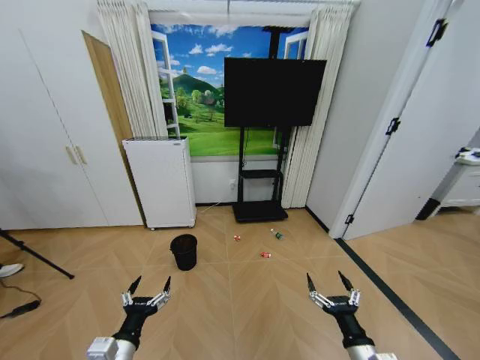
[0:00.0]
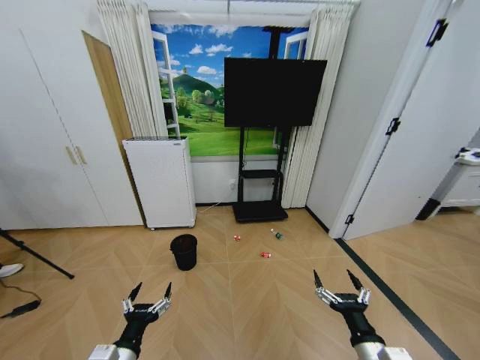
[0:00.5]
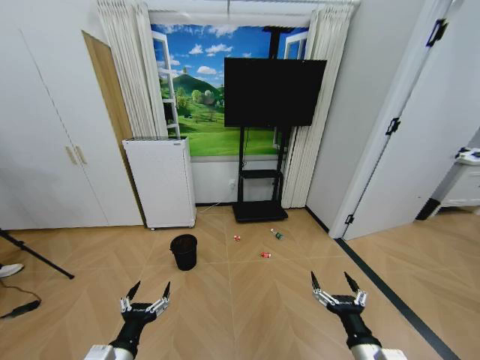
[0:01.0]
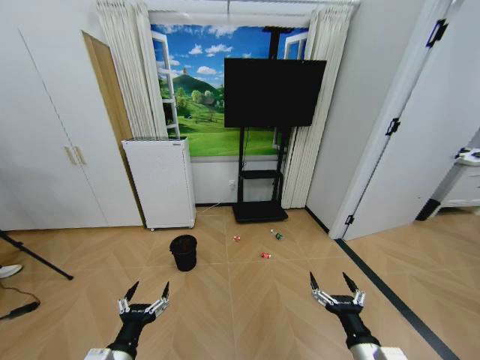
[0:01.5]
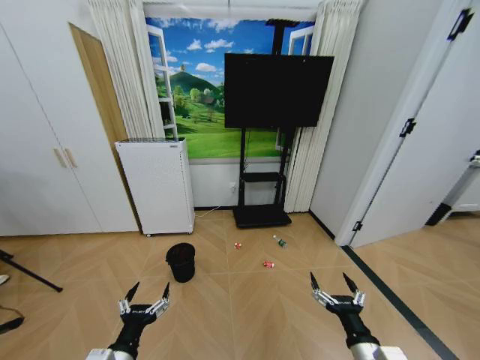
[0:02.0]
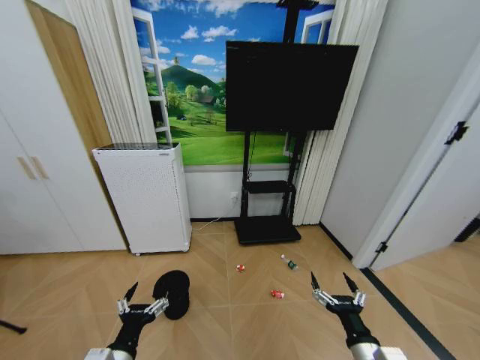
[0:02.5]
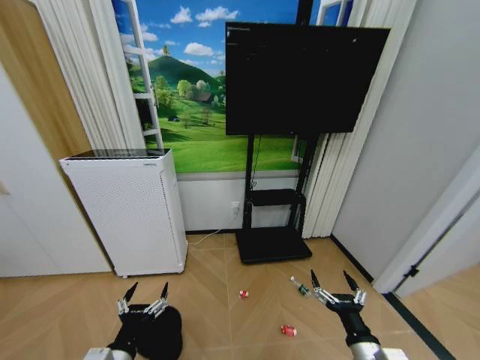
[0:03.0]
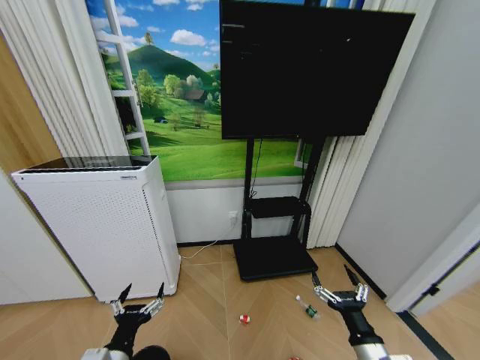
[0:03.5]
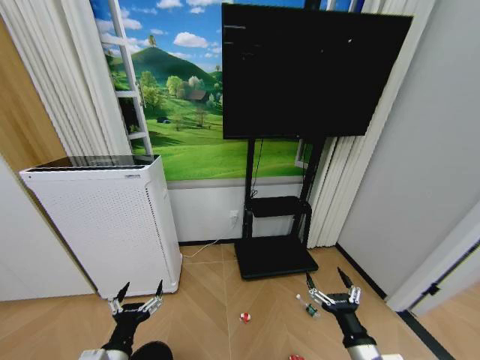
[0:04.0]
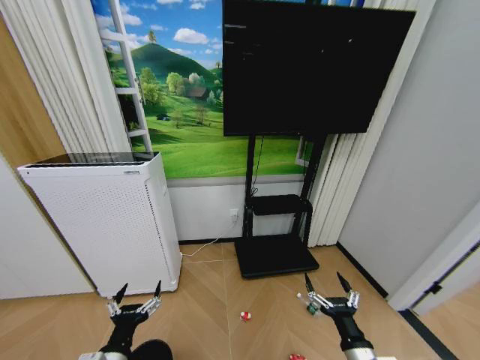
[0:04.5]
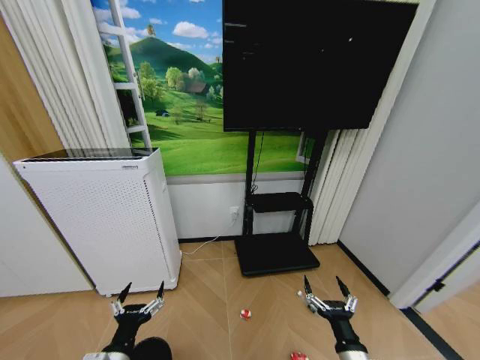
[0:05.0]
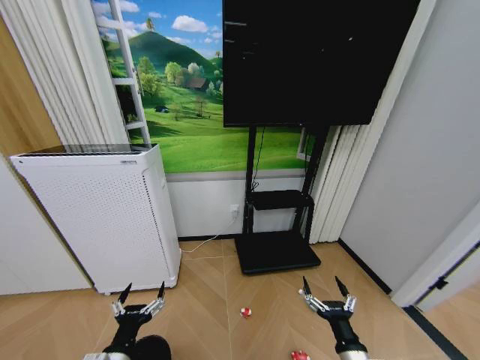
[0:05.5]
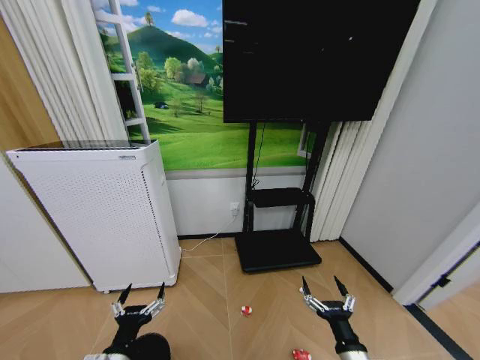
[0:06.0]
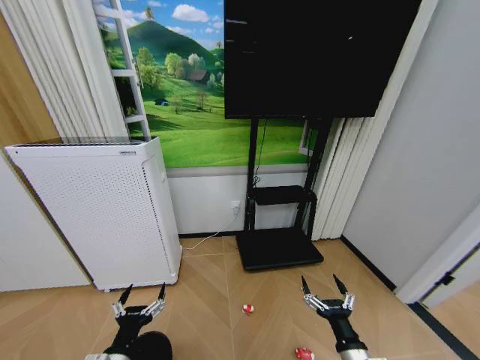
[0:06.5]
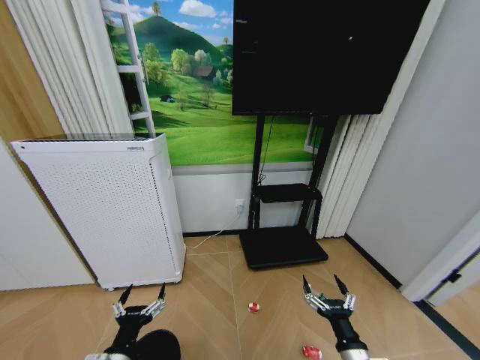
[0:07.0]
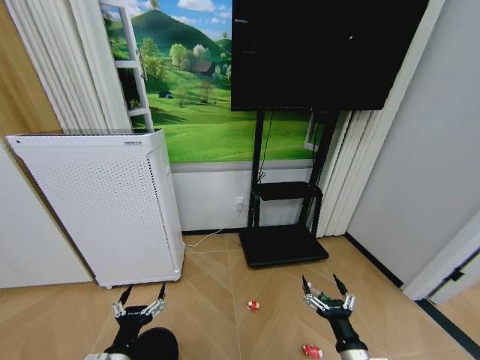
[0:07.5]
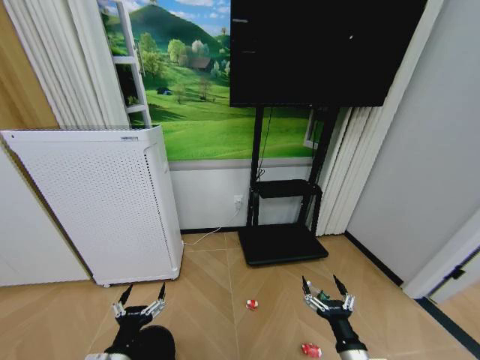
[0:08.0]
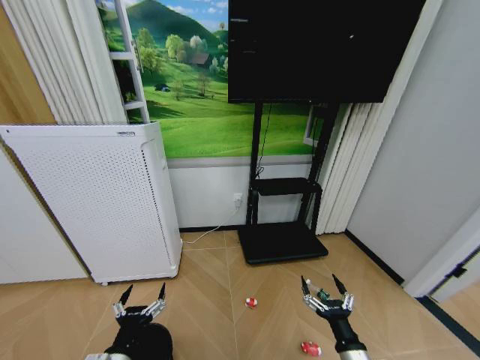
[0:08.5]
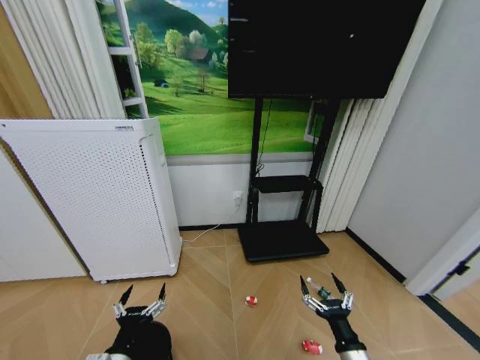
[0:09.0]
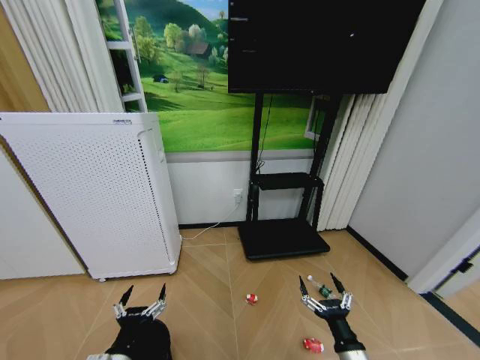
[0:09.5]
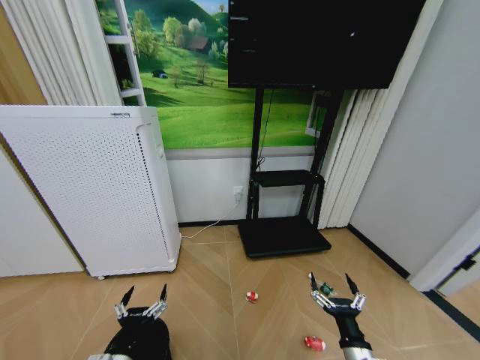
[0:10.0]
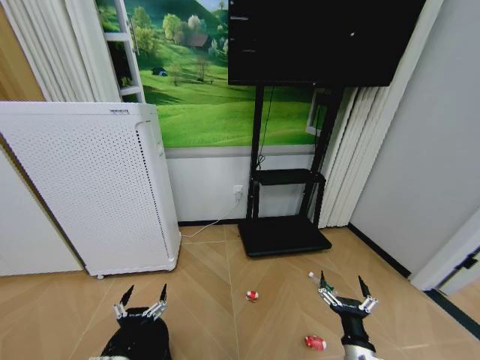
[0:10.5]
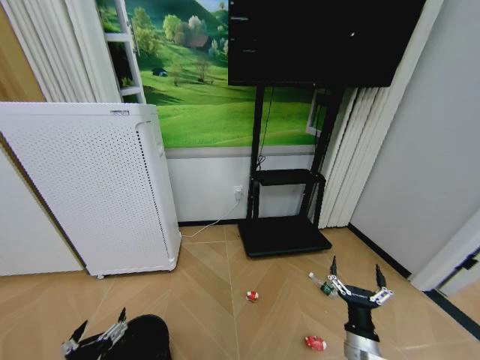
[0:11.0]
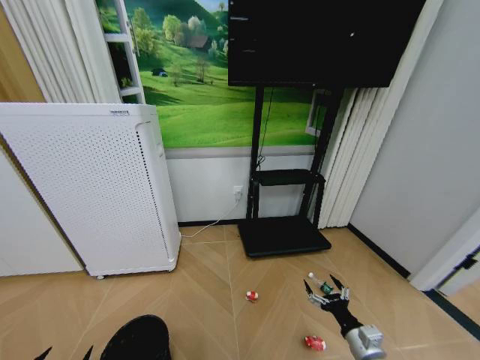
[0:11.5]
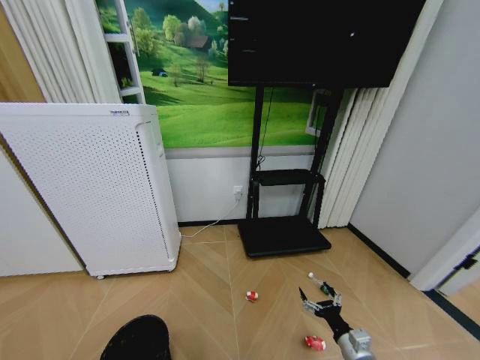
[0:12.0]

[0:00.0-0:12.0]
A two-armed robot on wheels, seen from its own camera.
Task of the whole recording: Pick up the trash bin and place the garbage on the floor into it.
0:10.0 to 0:12.0: The right gripper moves to the right, some 5 cm. The left gripper shifts about 20 cm to the left and backward.

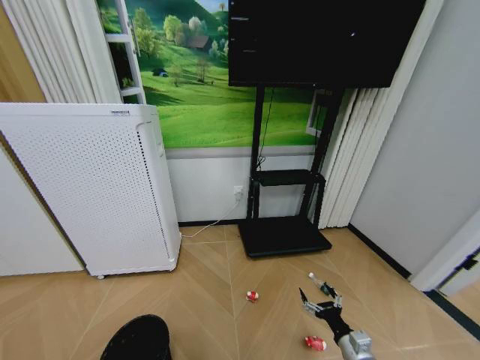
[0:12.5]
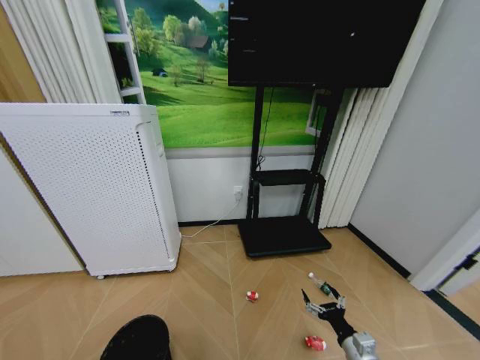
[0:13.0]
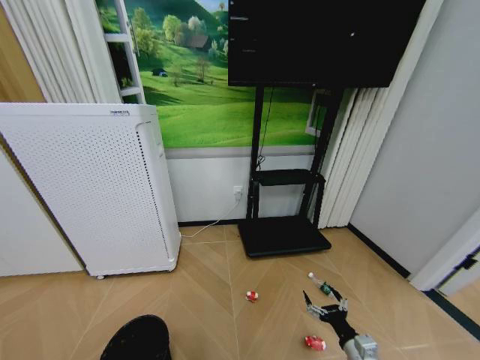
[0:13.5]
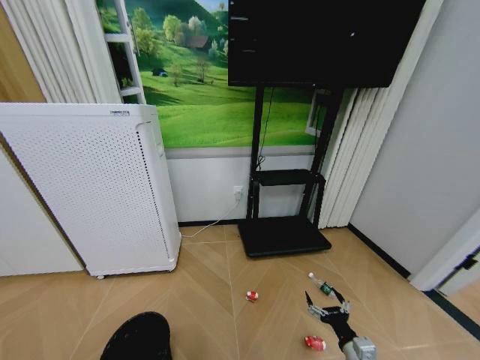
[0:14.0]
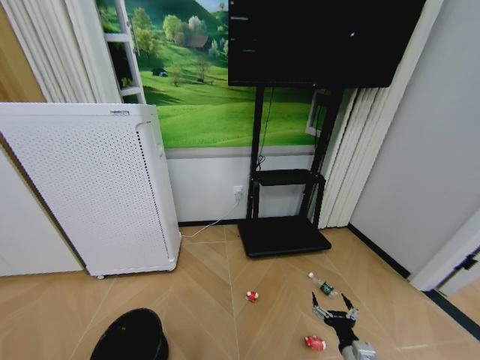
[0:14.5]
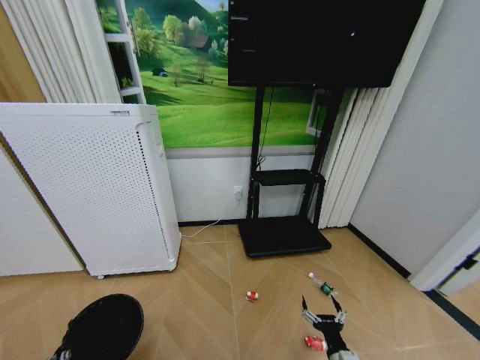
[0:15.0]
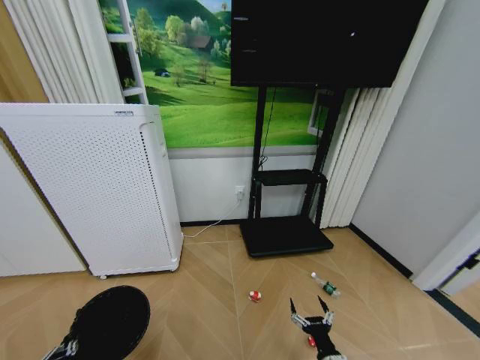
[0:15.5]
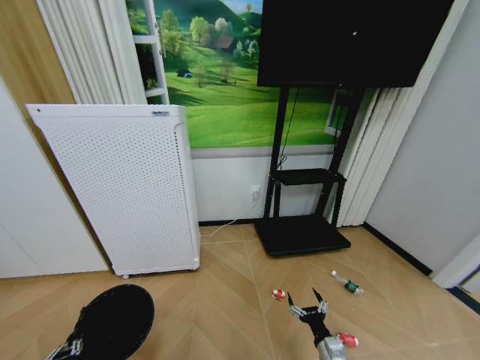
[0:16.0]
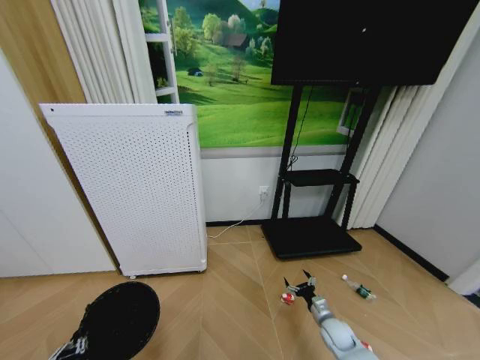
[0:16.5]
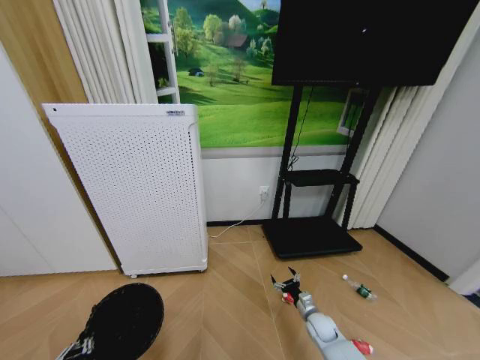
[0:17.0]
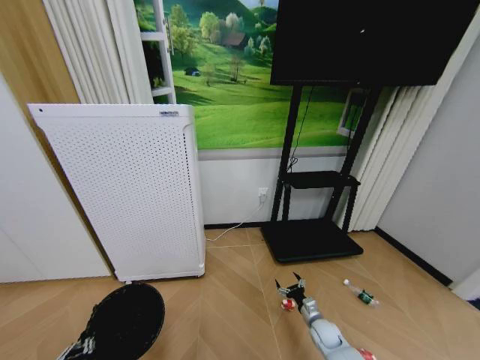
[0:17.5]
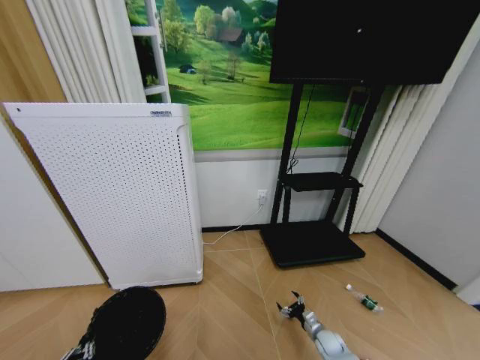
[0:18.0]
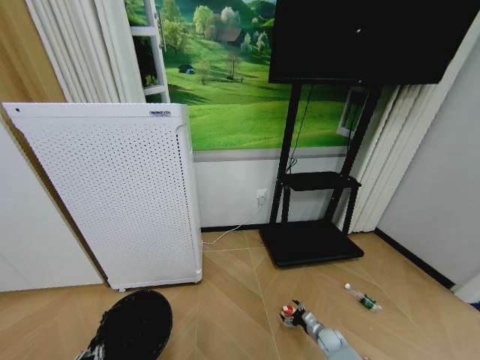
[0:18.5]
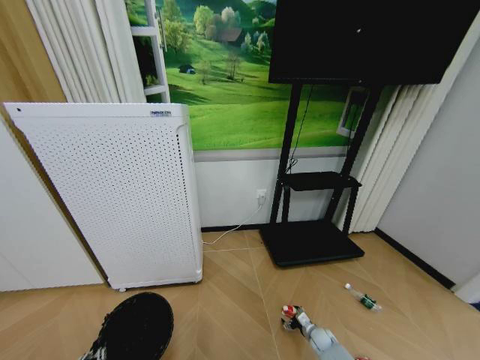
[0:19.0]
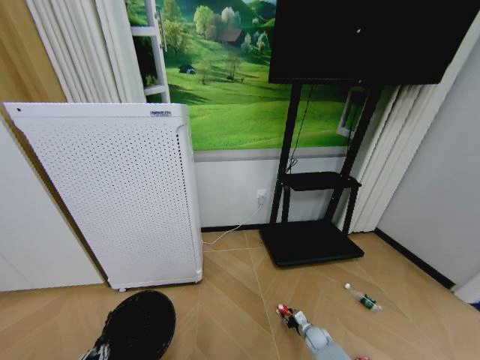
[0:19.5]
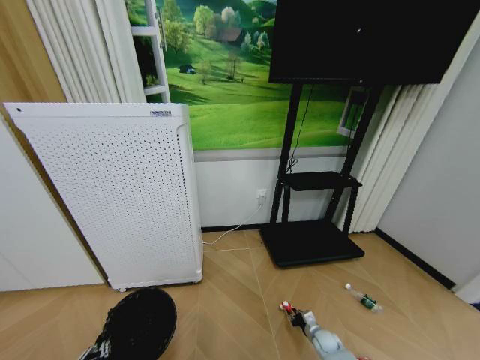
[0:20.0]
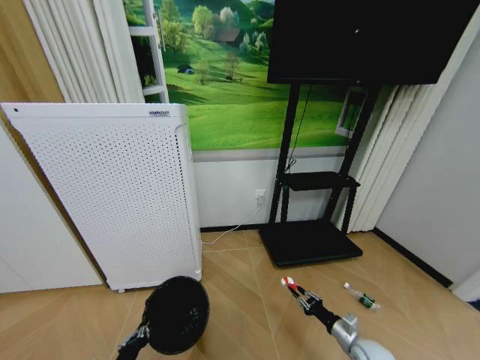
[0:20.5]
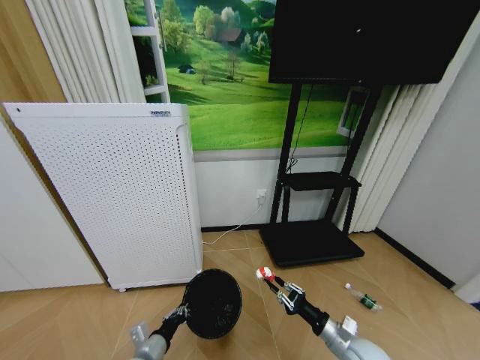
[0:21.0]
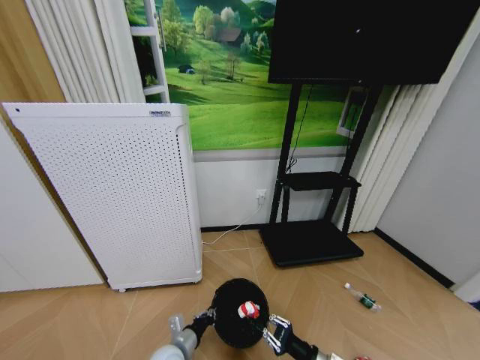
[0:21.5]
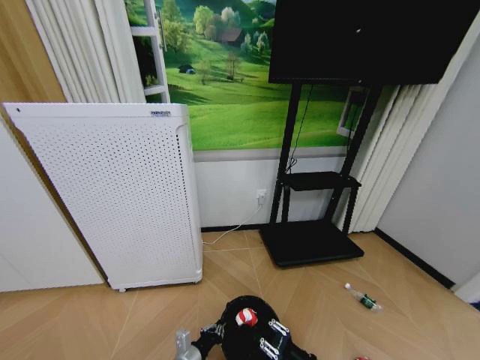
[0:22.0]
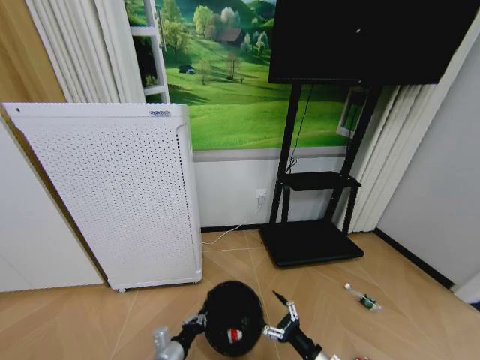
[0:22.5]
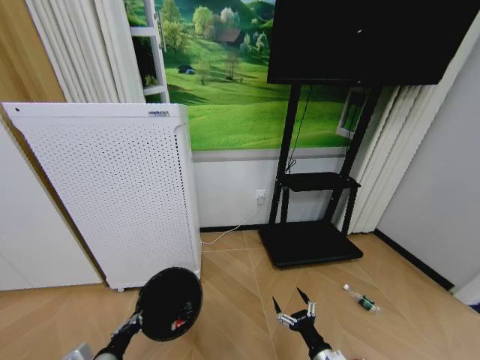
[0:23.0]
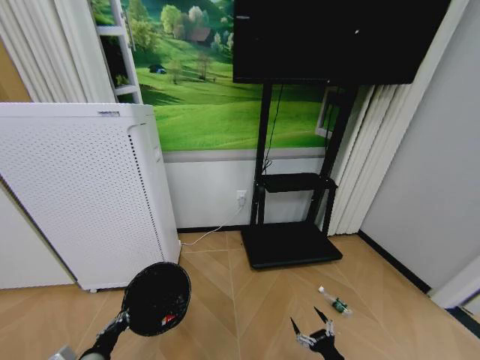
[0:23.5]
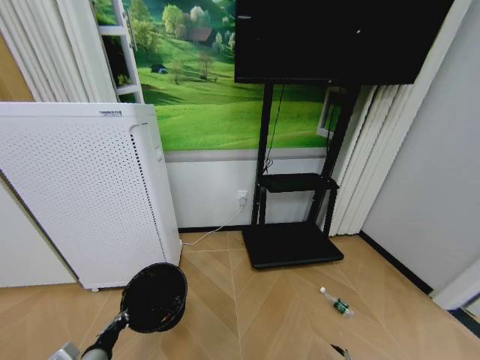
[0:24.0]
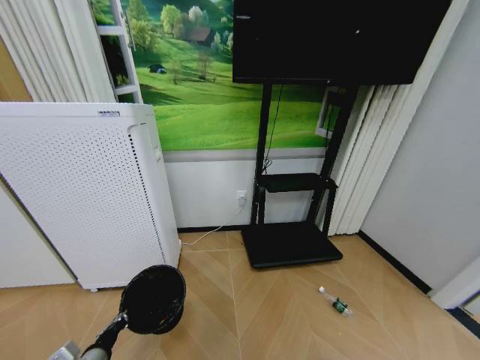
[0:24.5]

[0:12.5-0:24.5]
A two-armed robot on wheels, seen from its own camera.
Task of the whole recording: Pick up the trash bin and place the garbage on the floor into it.
0:12.5 to 0:14.5: The left gripper moves forward, roughly 15 cm, and closes.
0:14.5 to 0:16.5: The left gripper shifts by about 5 cm; the right gripper travels forward and downward by some 20 cm.
0:16.5 to 0:18.5: The right gripper shifts some 10 cm downward.
0:18.5 to 0:20.5: The right gripper moves upward and backward, approximately 15 cm, and closes up. Meanwhile the left gripper shifts roughly 5 cm forward.
0:20.5 to 0:22.5: The right gripper travels to the left, backward and upward by roughly 20 cm, and opens its fingers. The left gripper shifts approximately 10 cm to the right and forward.
0:22.5 to 0:24.5: The right gripper goes approximately 30 cm to the right and downward. The left gripper goes about 15 cm to the left and upward.

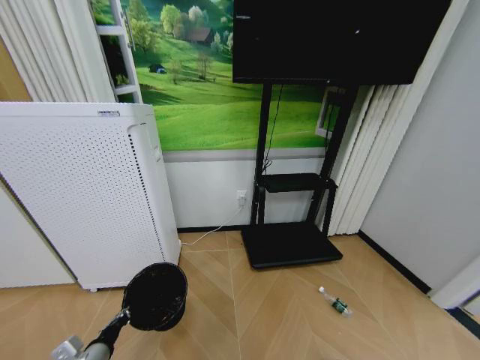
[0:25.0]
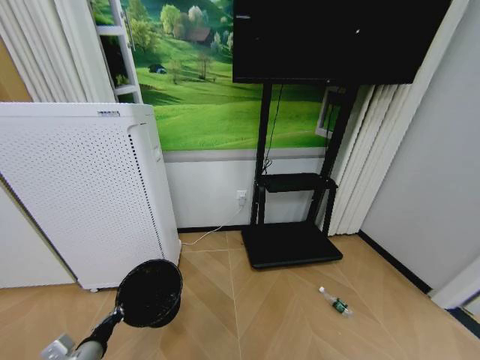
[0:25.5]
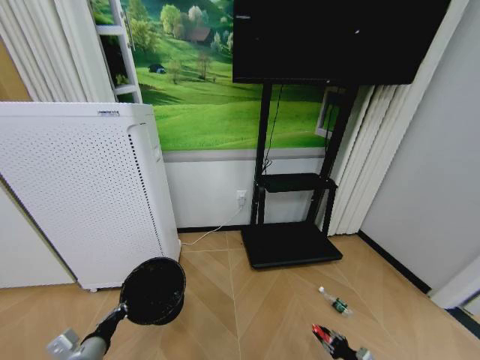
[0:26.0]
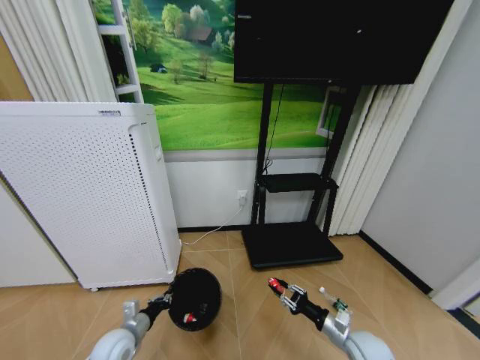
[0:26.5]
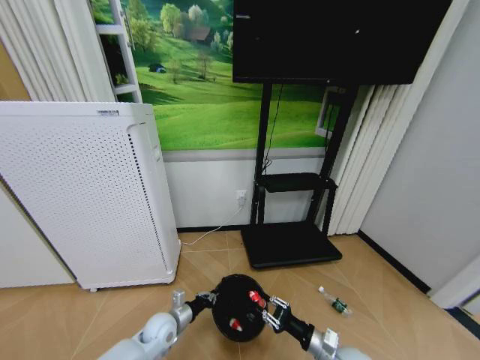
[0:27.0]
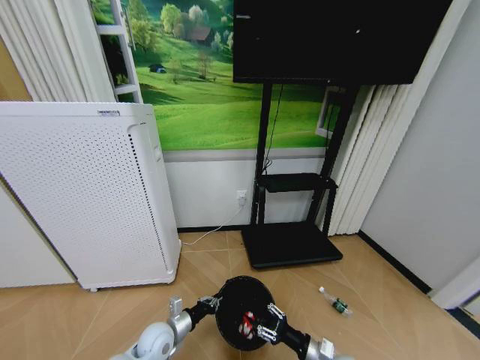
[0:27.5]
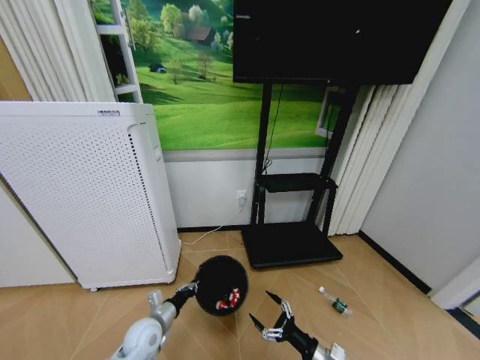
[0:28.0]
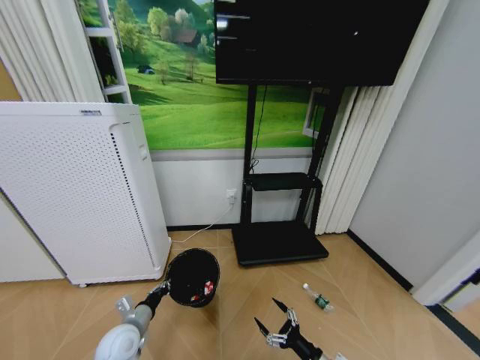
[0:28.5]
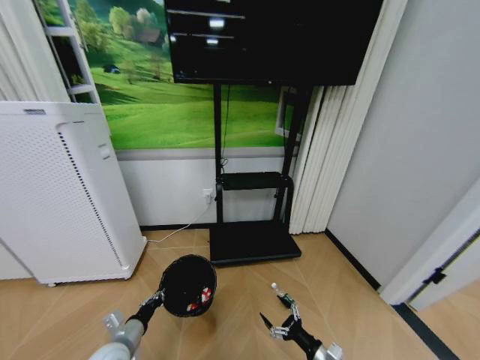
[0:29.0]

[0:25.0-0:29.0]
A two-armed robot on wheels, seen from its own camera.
Task of the whole recording: Pick up the trash bin and place the garbage on the floor into it.
0:25.0 to 0:27.0: The right gripper travels to the left, upward and forward by some 30 cm, and closes up. The left gripper moves forward, to the right and downward, some 20 cm.
0:27.0 to 0:29.0: The right gripper heads downward, covering about 5 cm, and opens its fingers. Meanwhile the left gripper is displaced to the left, backward and upward by roughly 15 cm.
